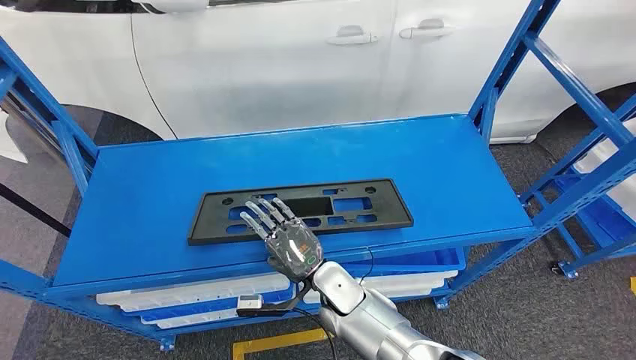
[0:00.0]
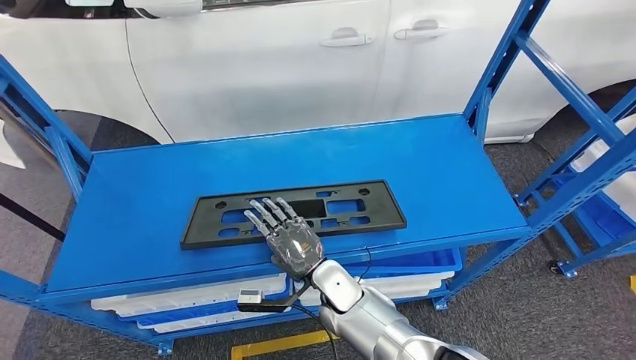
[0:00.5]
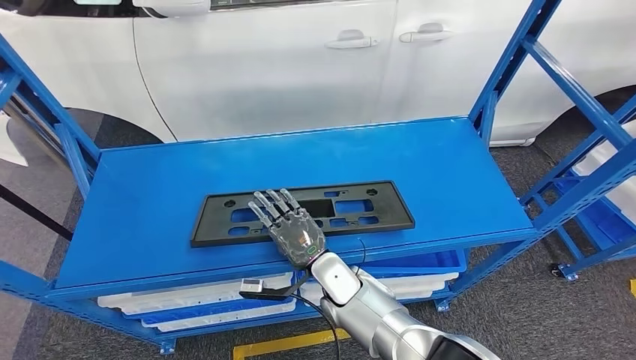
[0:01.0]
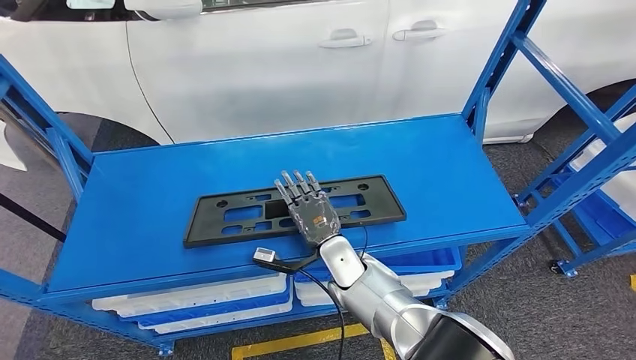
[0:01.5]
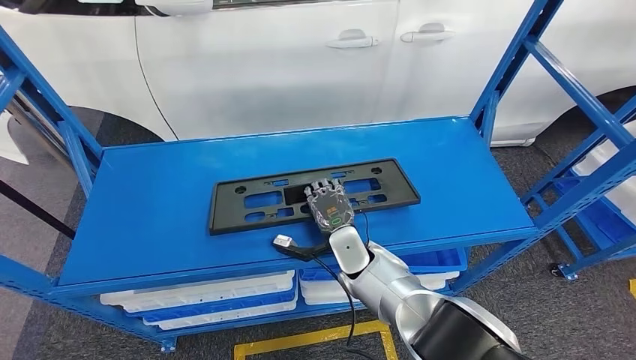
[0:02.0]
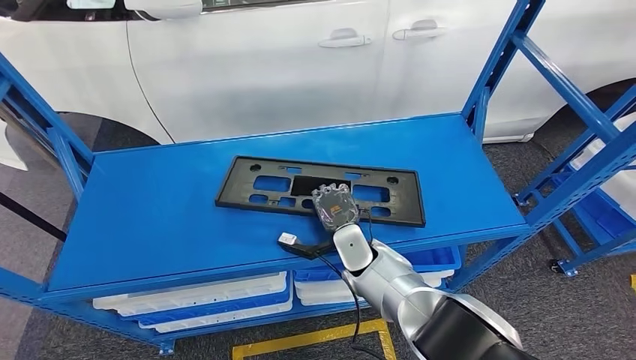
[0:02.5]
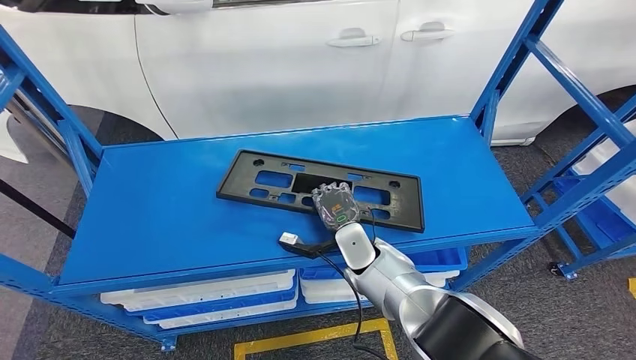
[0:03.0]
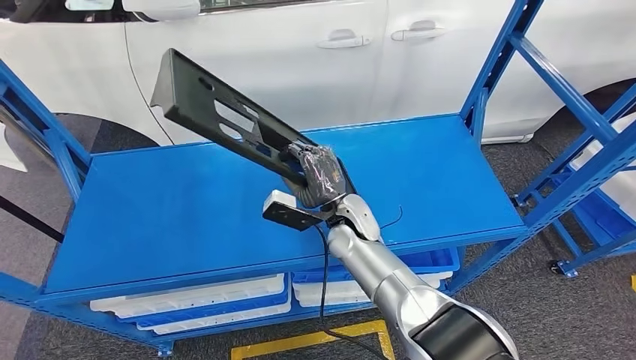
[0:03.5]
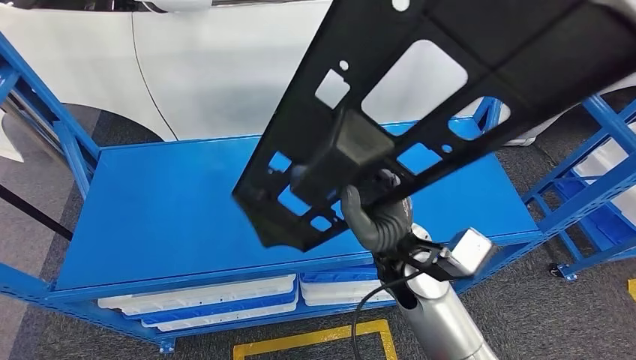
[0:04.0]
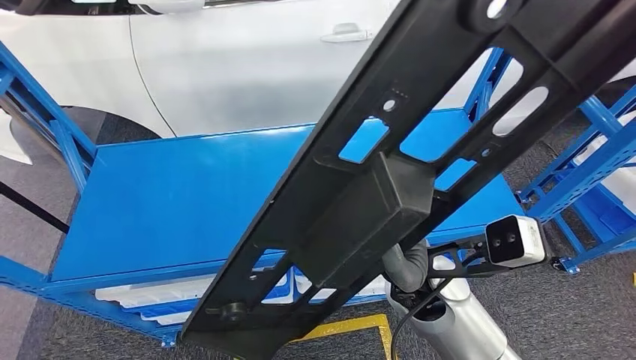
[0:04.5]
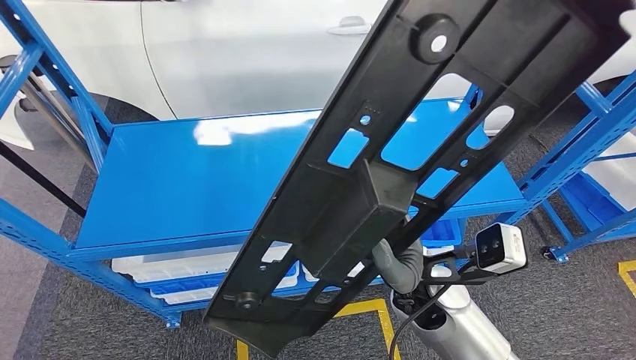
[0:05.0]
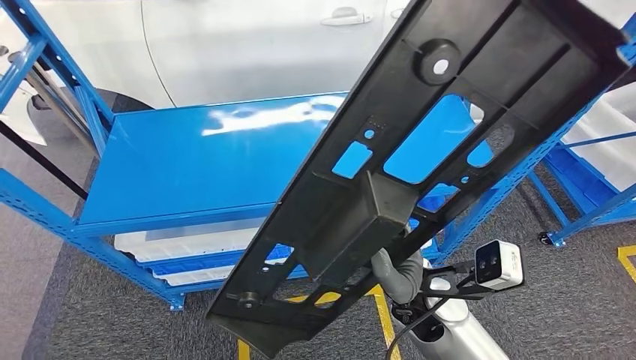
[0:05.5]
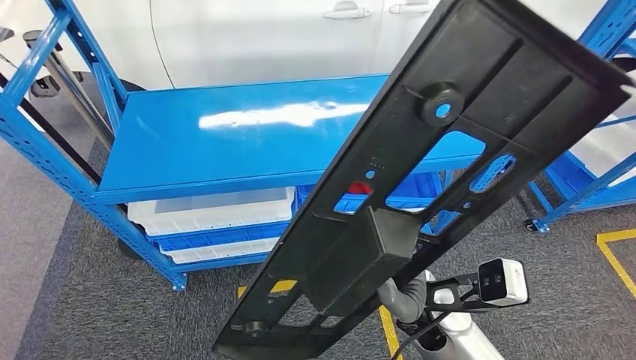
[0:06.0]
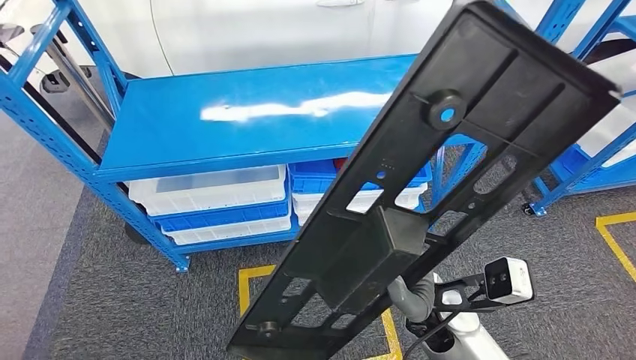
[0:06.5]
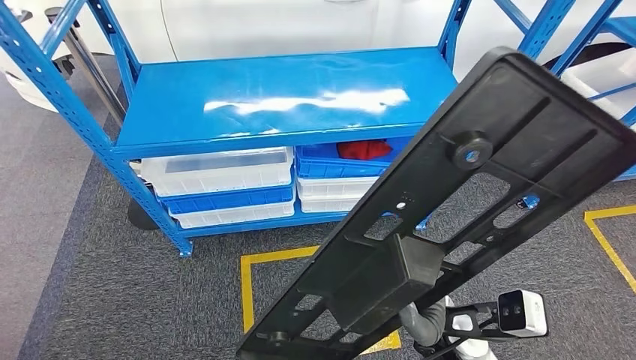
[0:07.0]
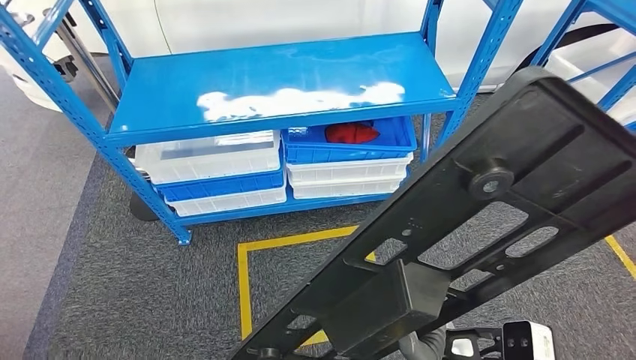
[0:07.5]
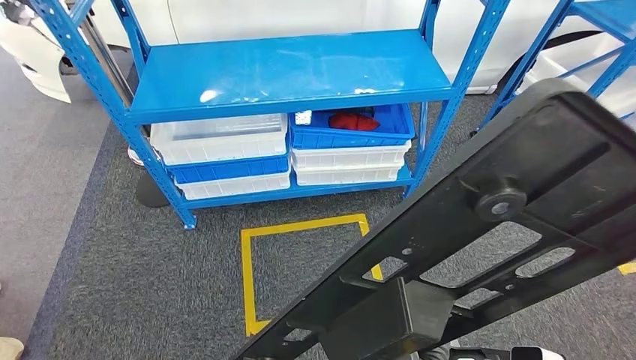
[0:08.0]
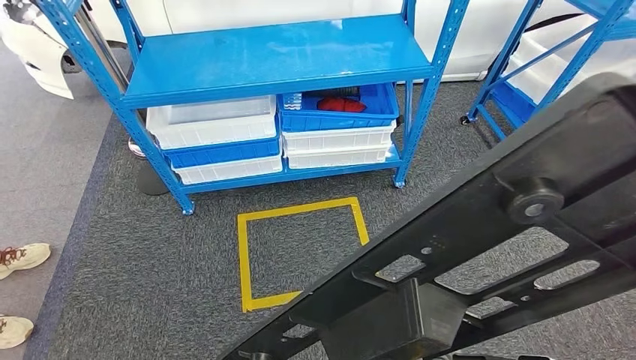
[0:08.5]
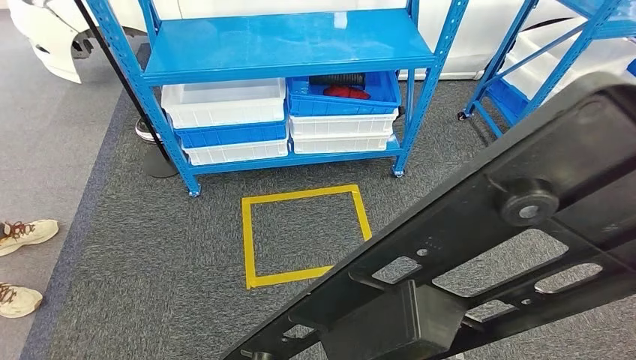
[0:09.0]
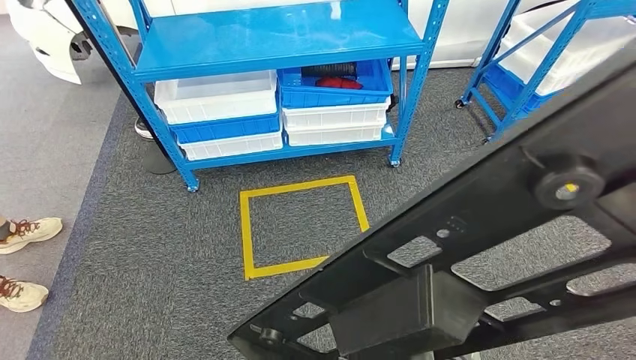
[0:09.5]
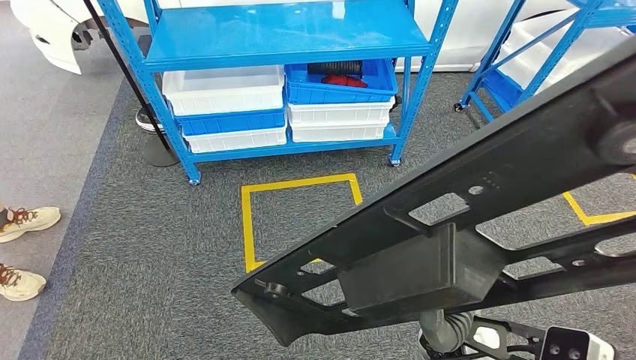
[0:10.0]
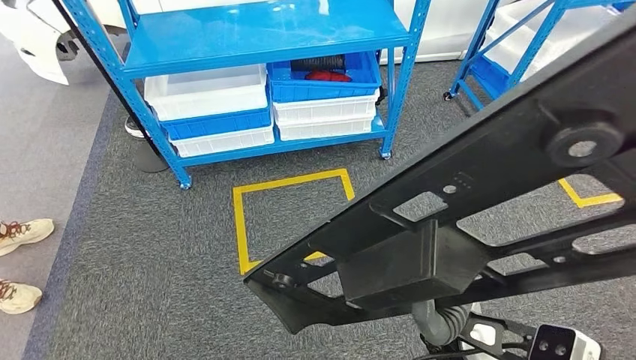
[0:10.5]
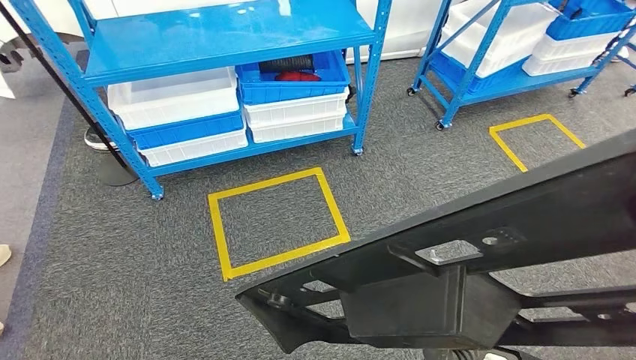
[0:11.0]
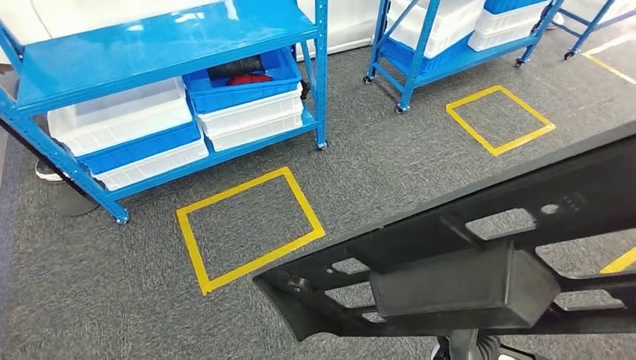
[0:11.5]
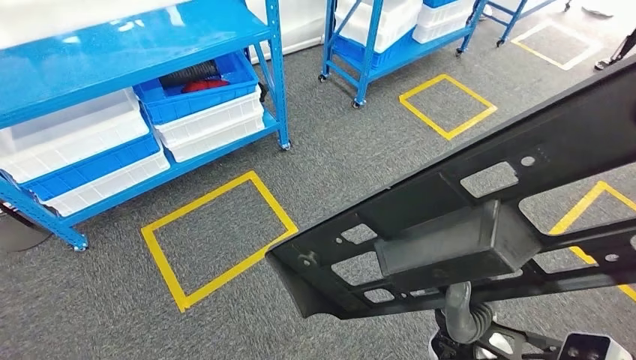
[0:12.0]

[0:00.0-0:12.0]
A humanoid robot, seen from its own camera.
Step, 0:00.0 to 0:04.0: Pick up the large material from the shelf.

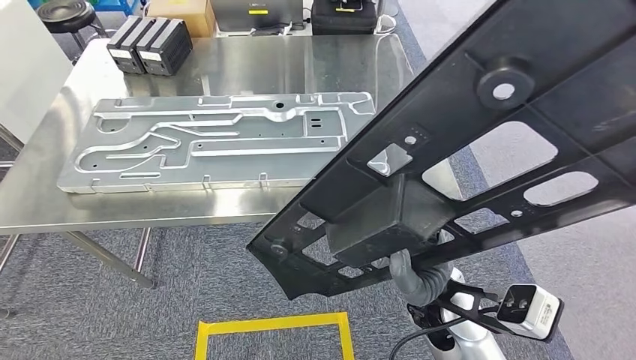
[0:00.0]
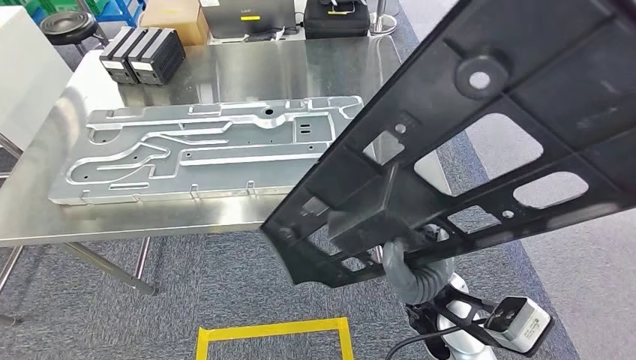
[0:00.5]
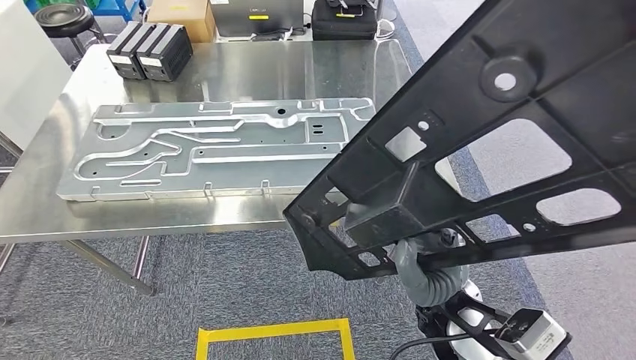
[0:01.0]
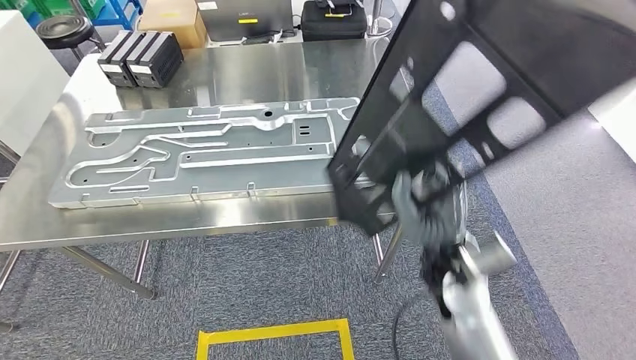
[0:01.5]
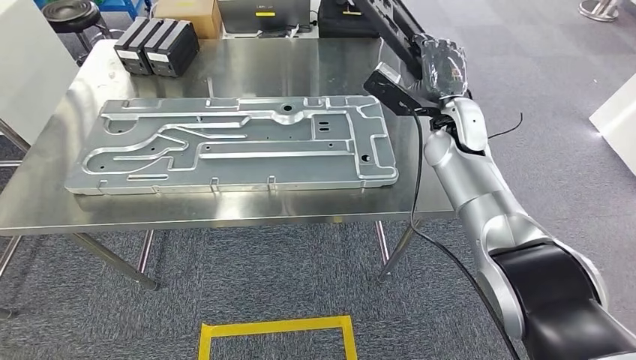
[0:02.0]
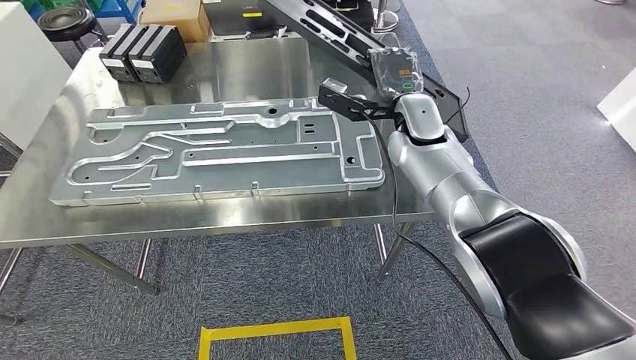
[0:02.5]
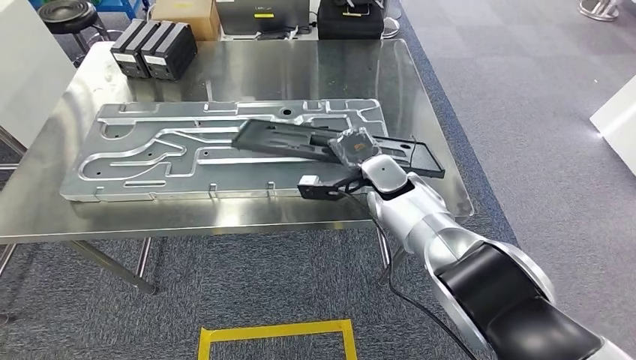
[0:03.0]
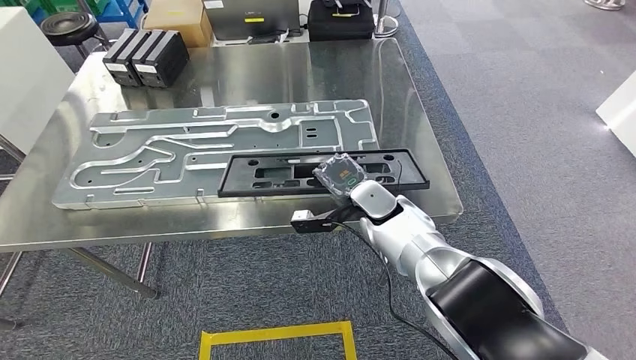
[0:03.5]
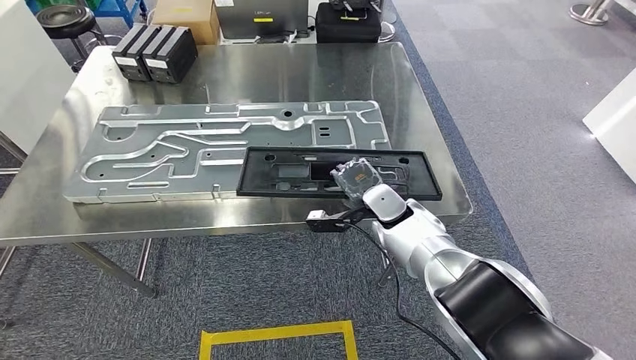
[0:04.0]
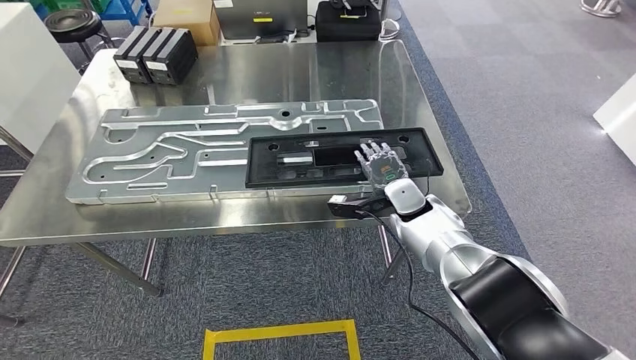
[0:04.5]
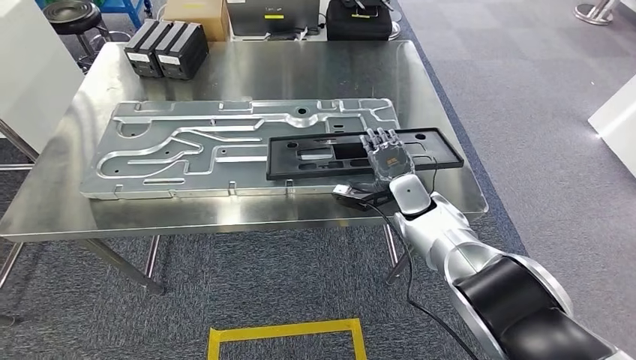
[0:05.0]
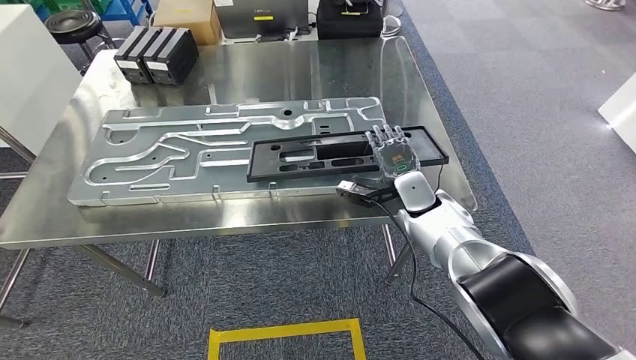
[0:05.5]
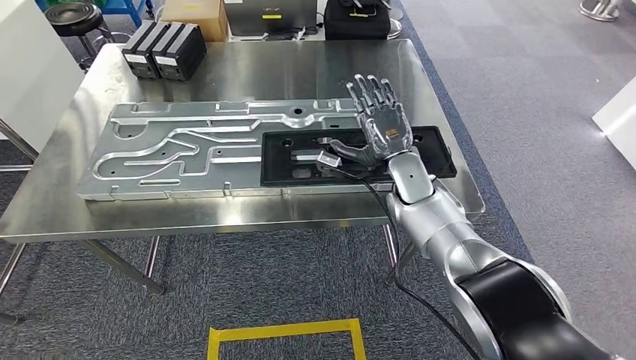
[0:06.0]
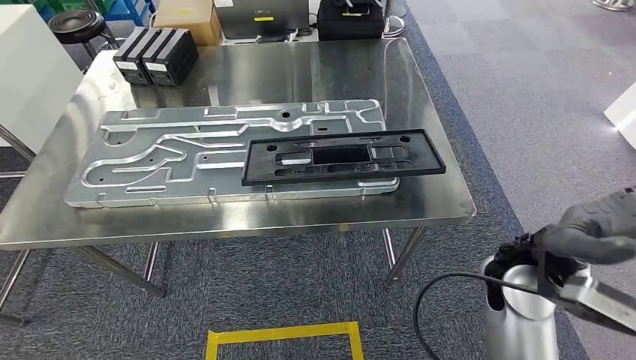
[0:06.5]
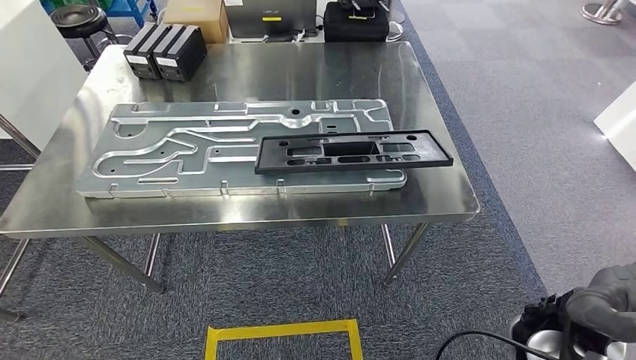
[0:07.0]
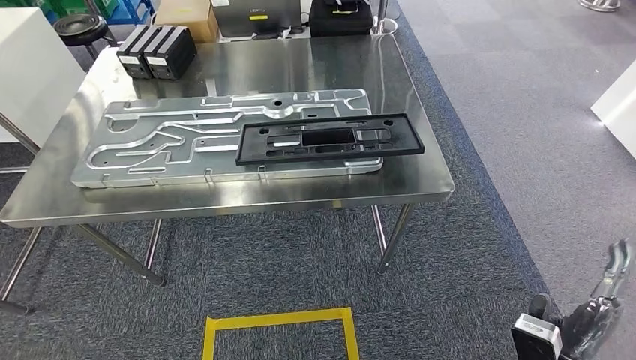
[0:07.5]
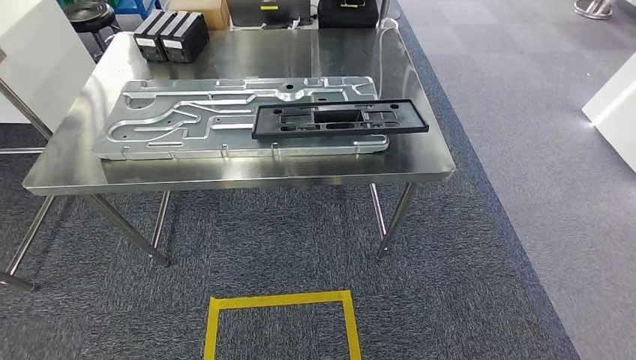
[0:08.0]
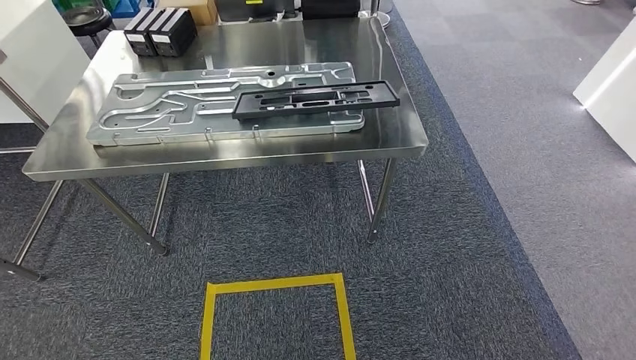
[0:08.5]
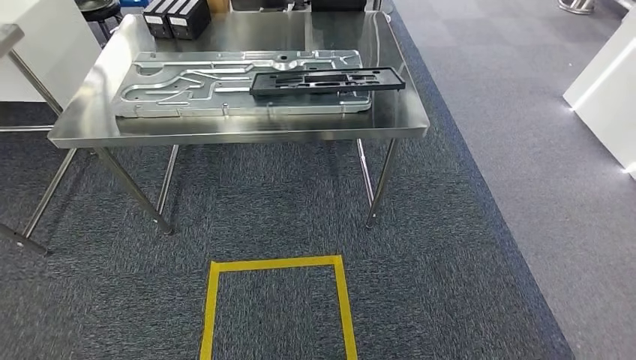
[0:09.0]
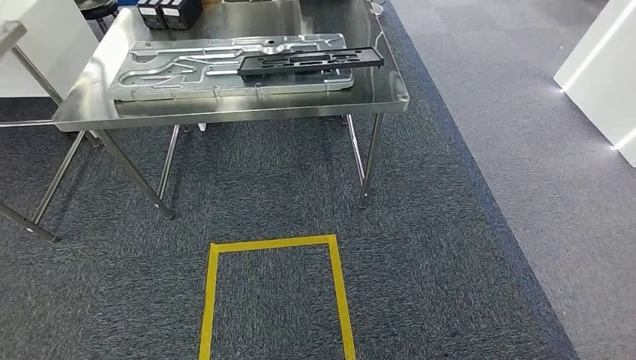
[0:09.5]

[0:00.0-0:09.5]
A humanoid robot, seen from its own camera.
Step, 0:02.0 to 0:05.0: Insert the large material into the corresponding slot on the workbench.
Step, 0:05.5 to 0:09.5: Return to the initial position at the shelf.
